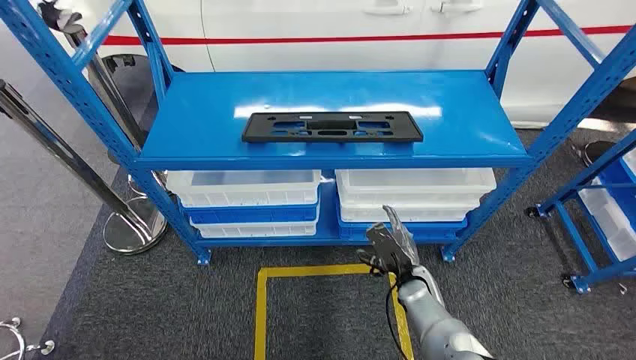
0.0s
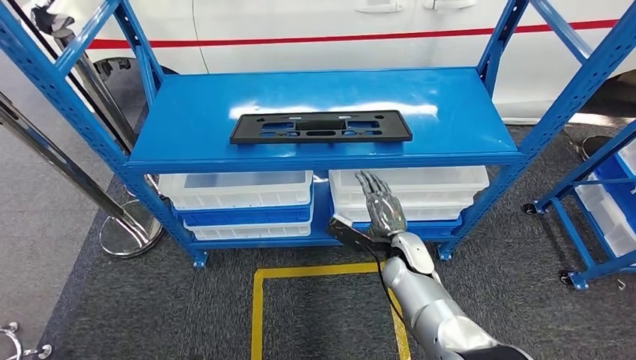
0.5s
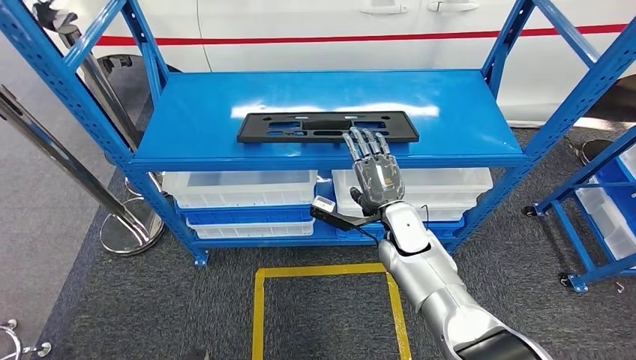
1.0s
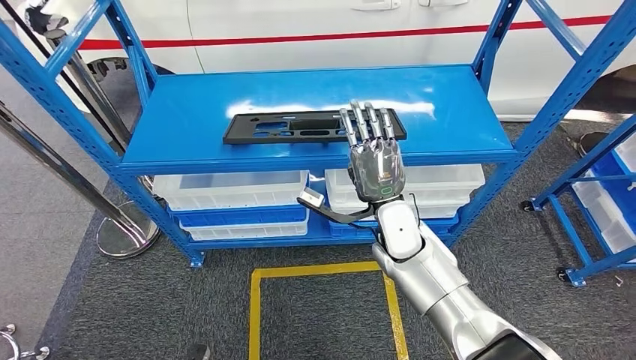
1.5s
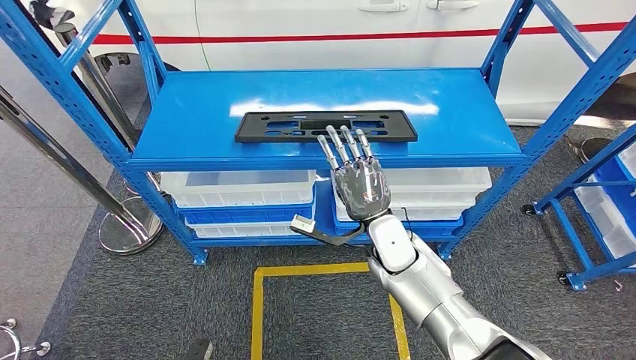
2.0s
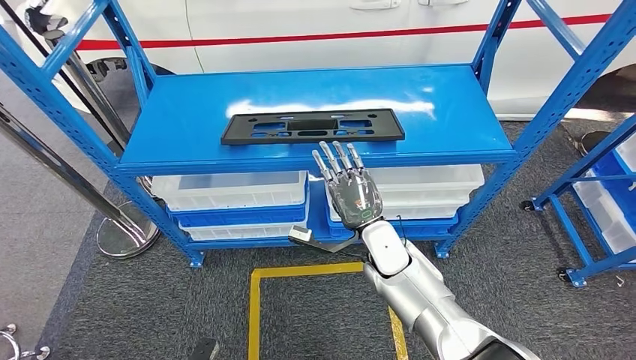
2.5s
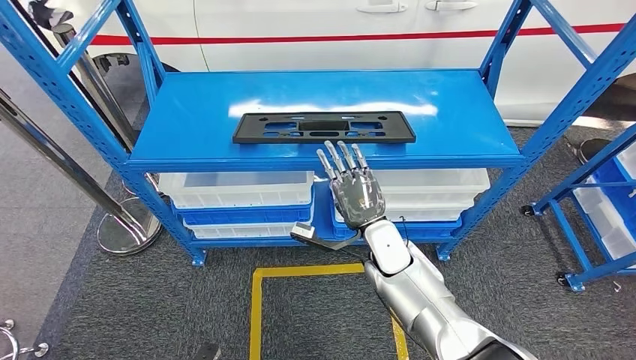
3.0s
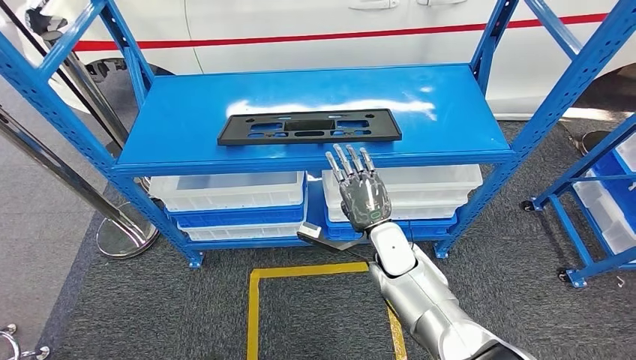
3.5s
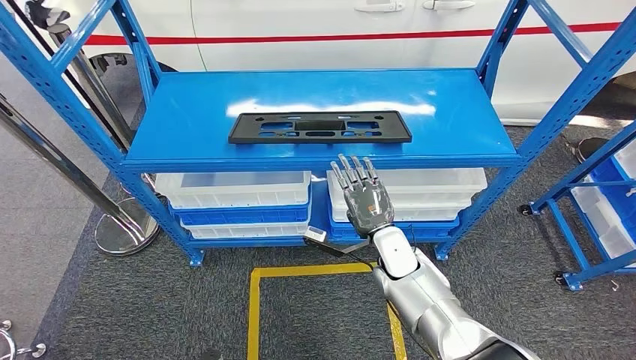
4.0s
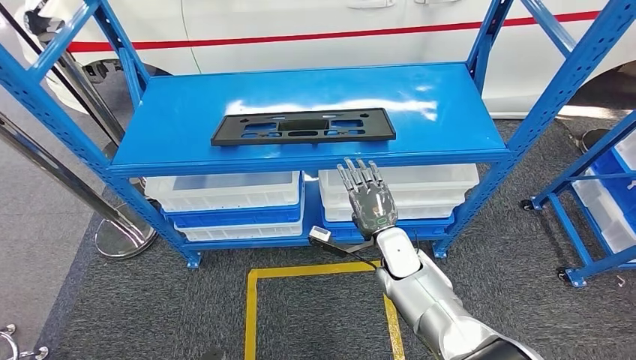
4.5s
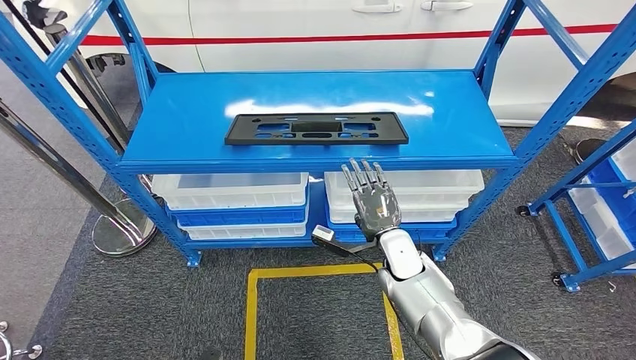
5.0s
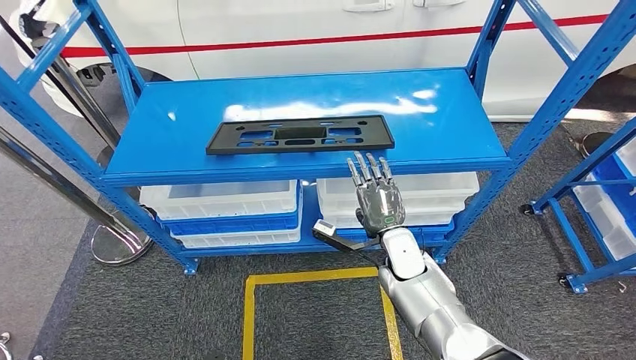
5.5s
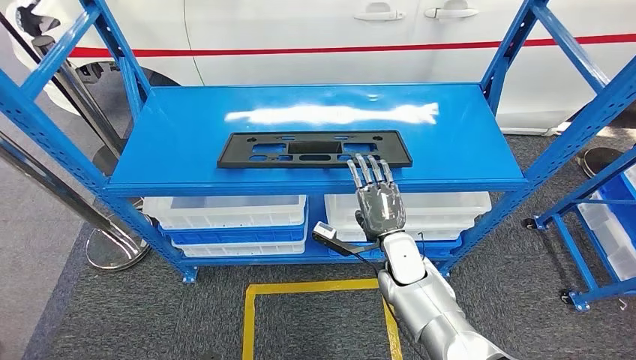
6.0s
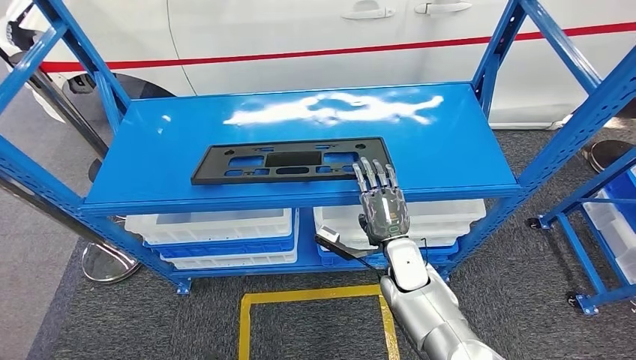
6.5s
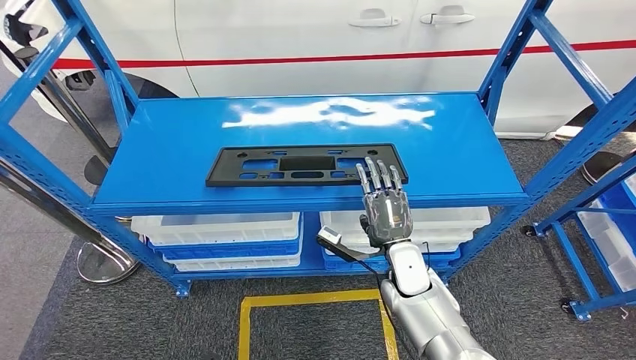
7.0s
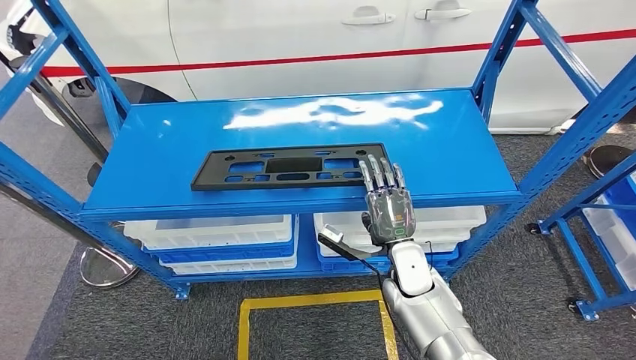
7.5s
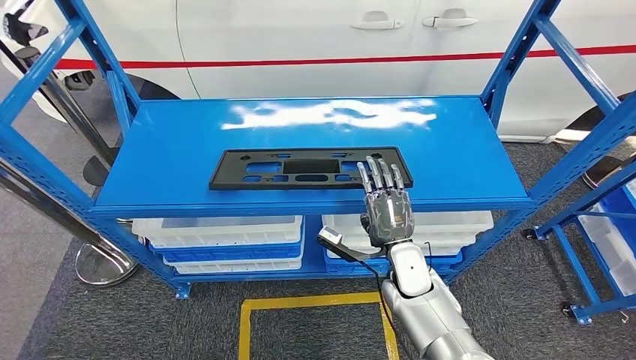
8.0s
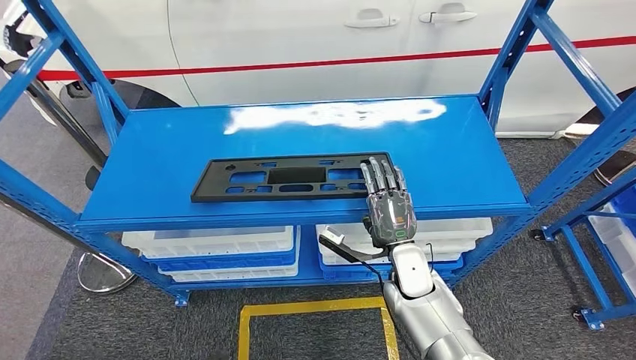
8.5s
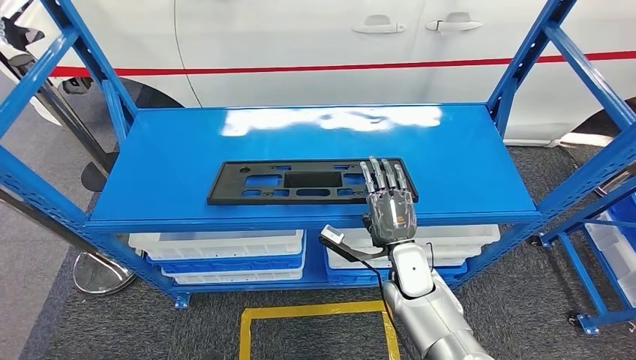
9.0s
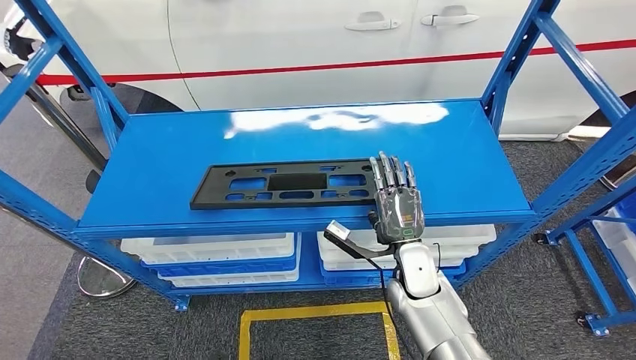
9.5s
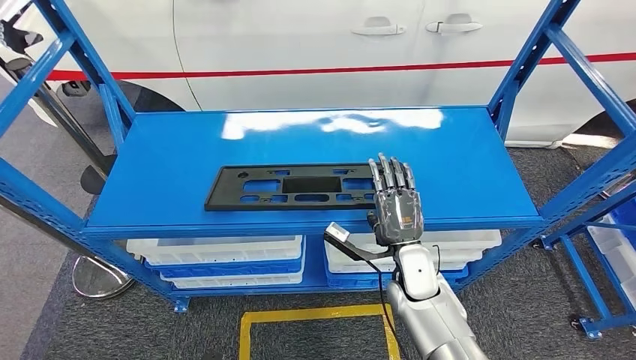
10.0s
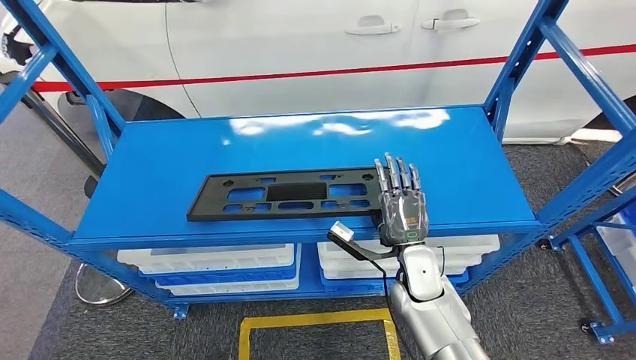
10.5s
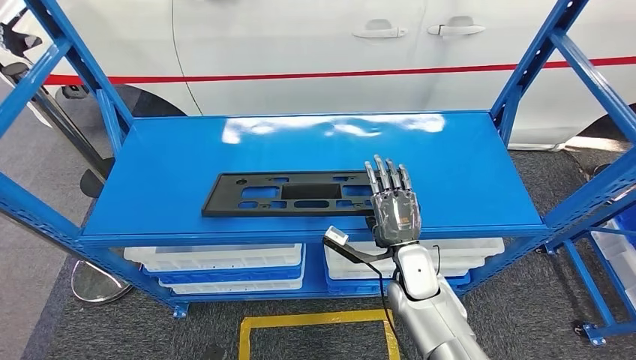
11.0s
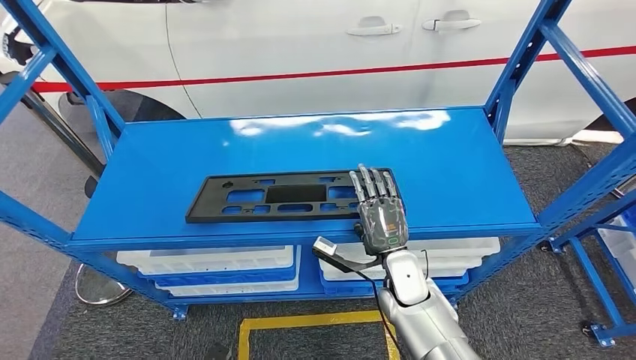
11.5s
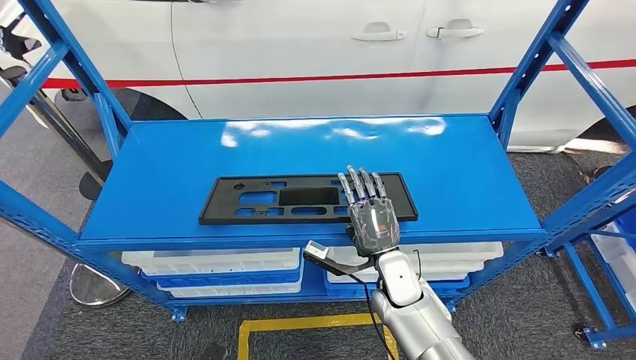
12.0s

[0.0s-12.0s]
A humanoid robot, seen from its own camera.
2.0s to 4.0s: The right hand moves downward, about 5 cm.

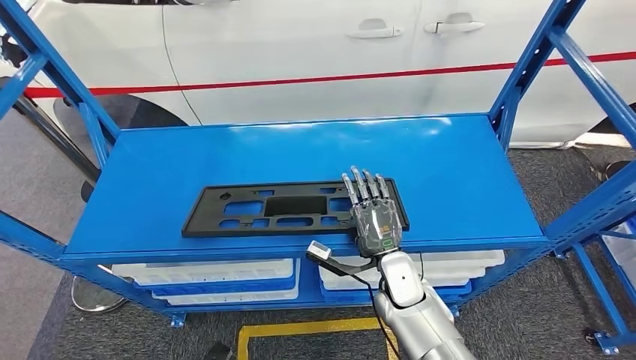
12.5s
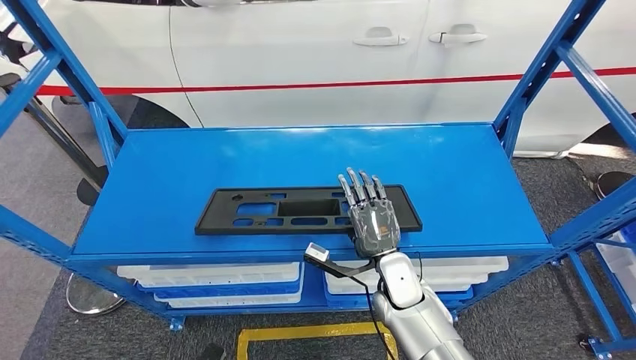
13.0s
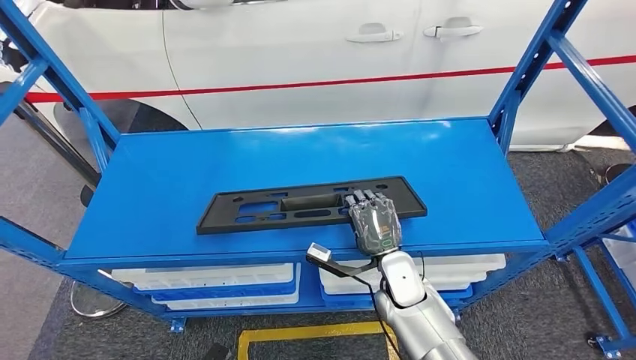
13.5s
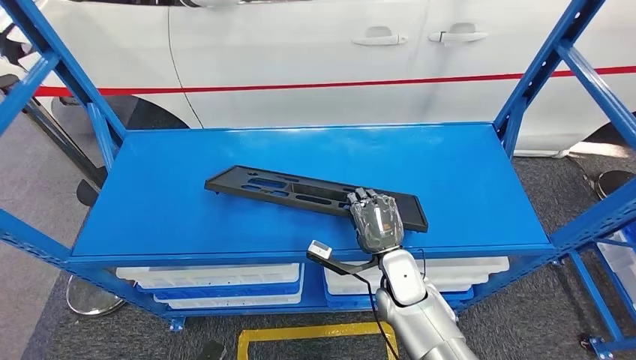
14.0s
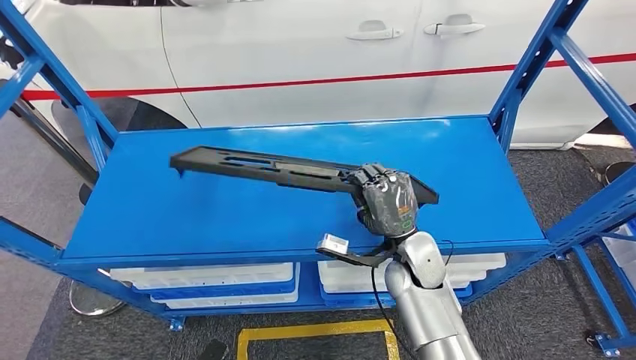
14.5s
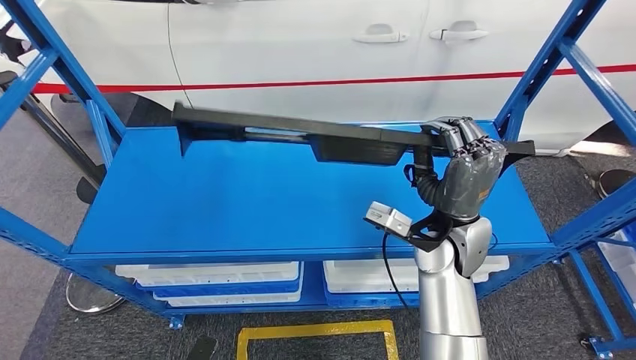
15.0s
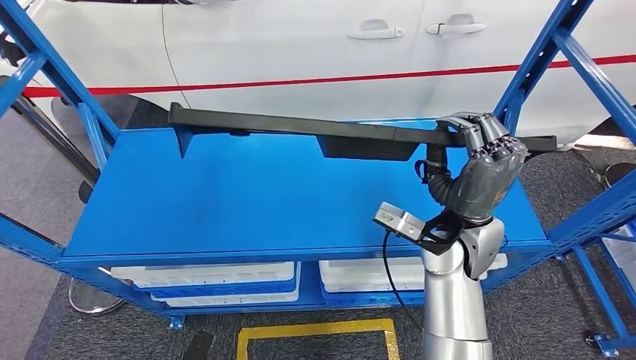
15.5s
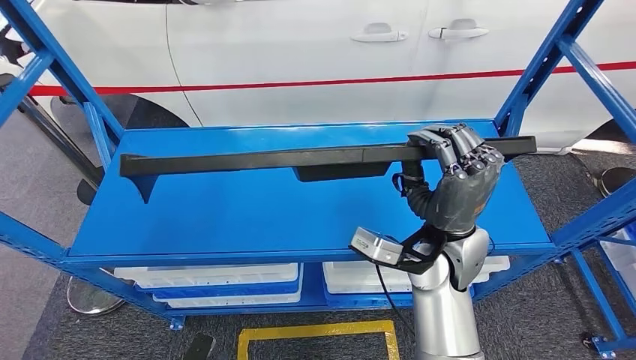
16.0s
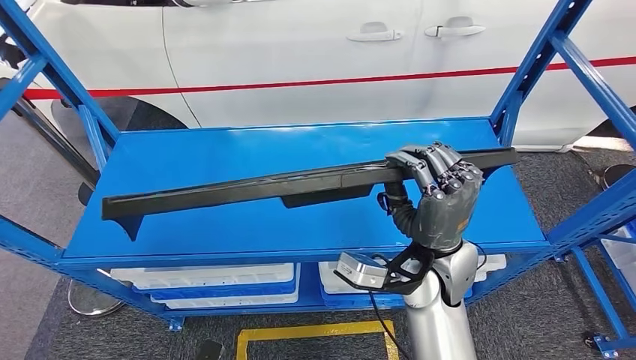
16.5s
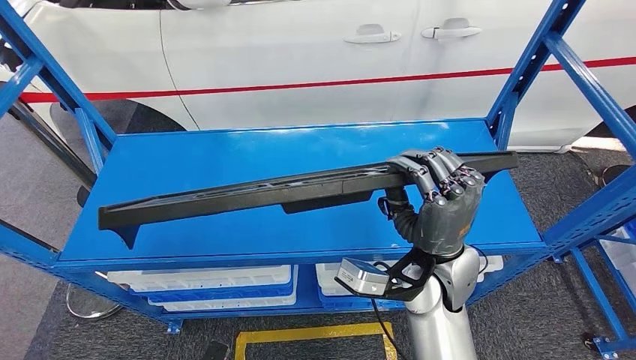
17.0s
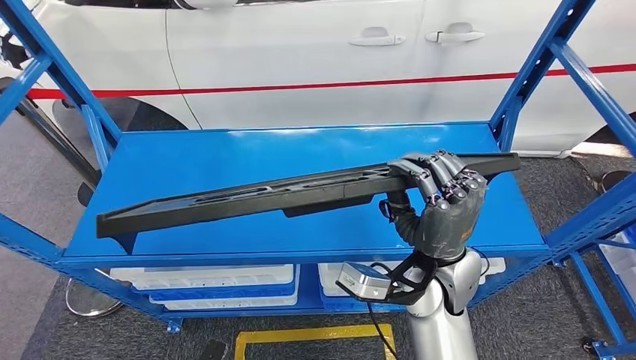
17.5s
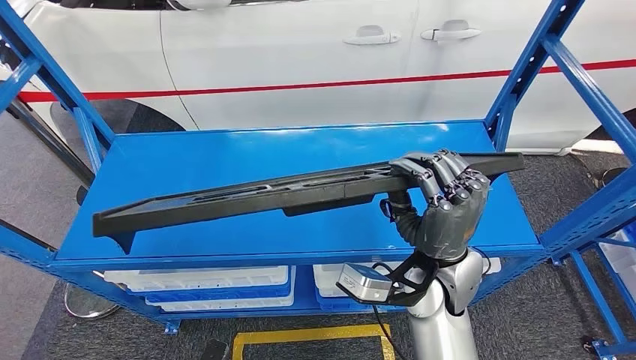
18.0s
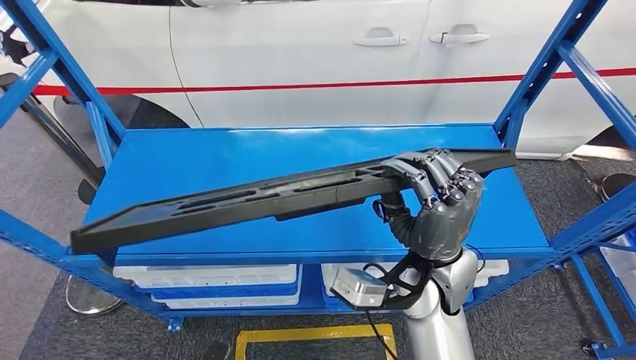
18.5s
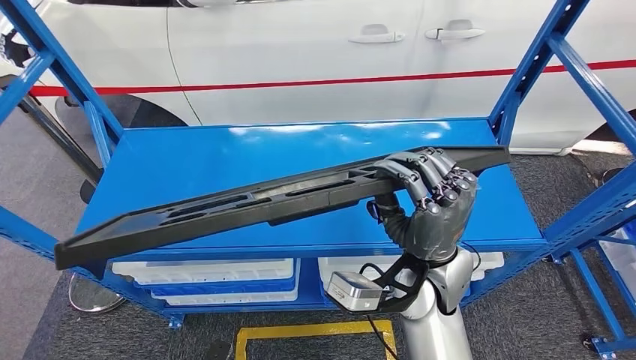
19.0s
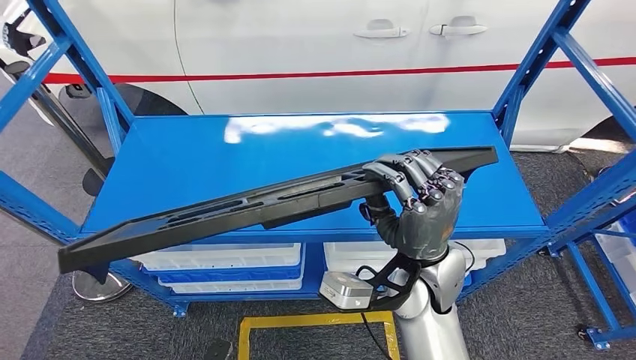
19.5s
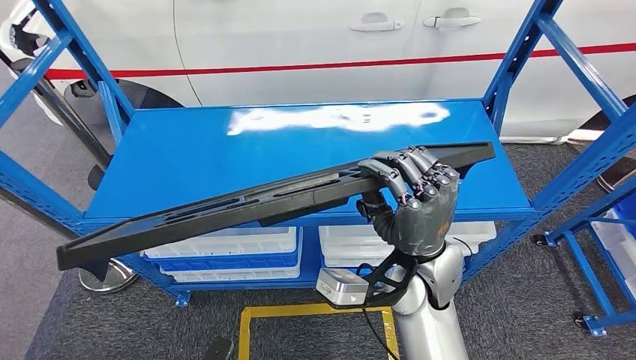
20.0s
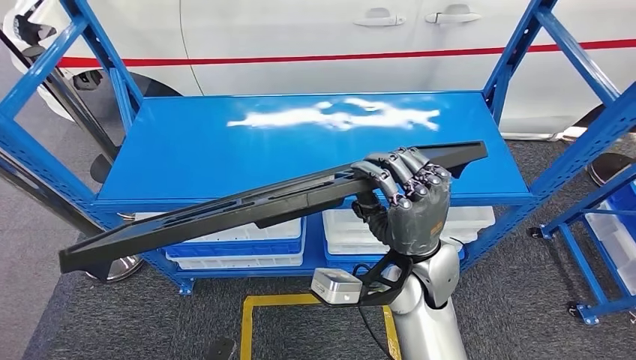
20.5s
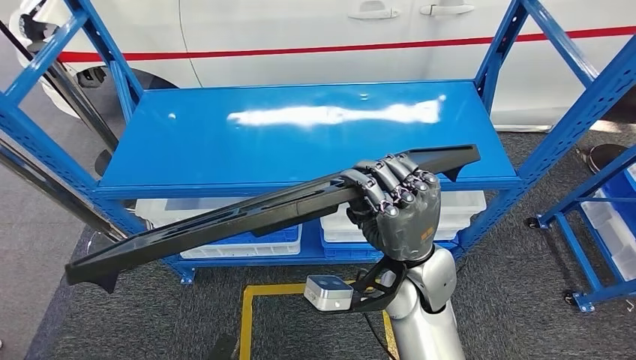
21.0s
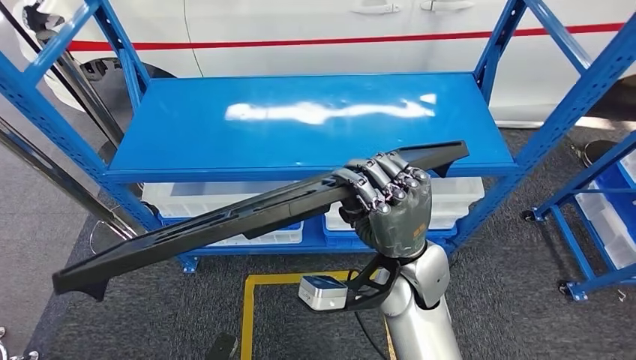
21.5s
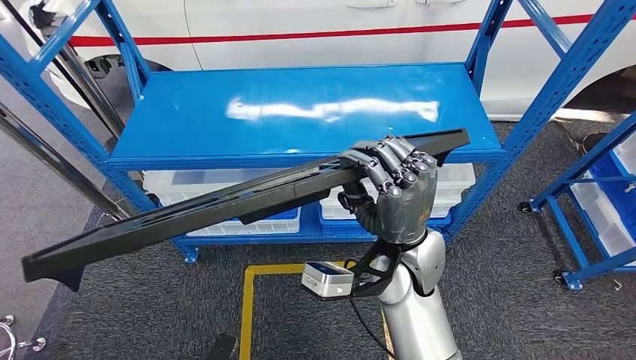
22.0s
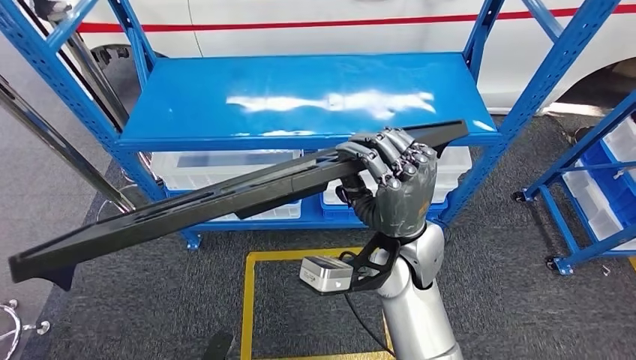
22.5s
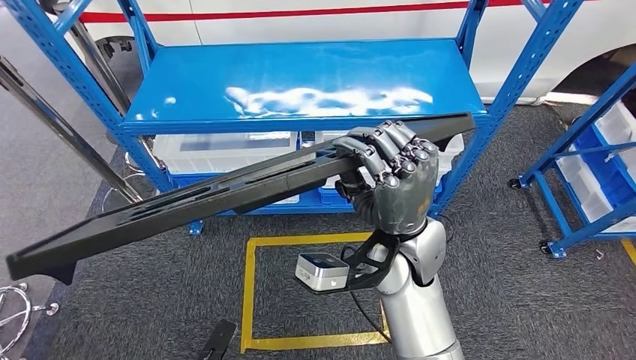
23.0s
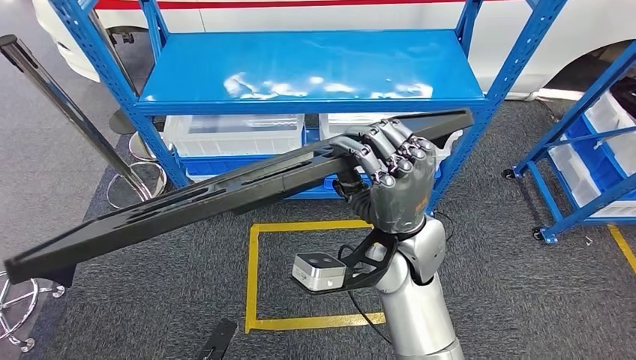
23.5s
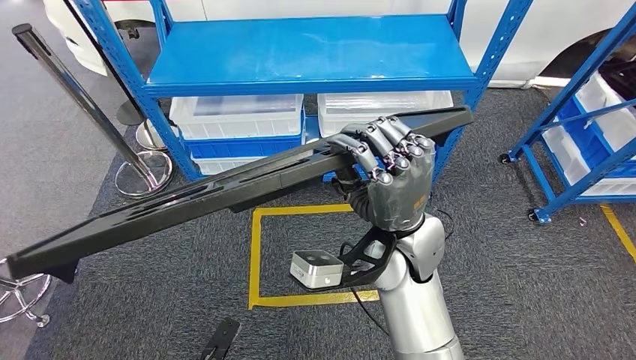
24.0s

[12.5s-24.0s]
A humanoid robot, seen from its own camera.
Step, 12.5s to 15.0s: Pick up the large material from the shelf.
14.5s to 16.5s: The right hand goes approximately 10 cm upward and backward.
